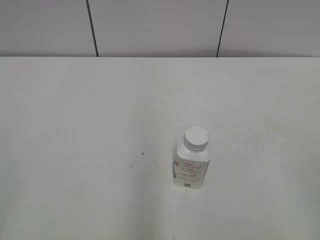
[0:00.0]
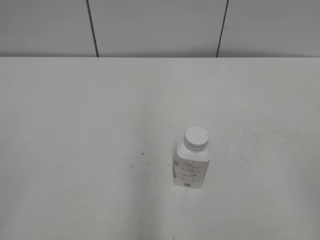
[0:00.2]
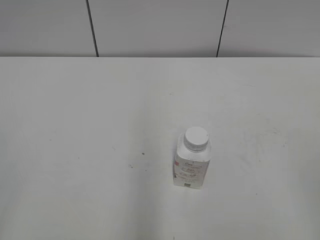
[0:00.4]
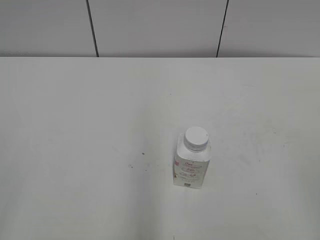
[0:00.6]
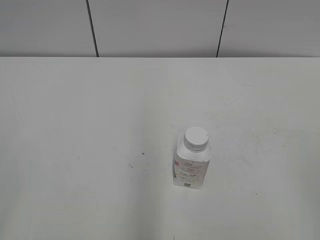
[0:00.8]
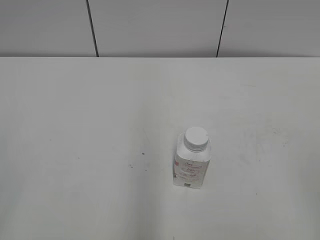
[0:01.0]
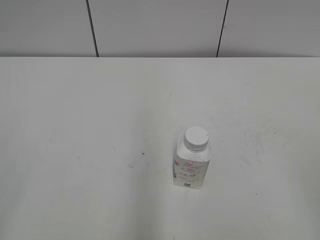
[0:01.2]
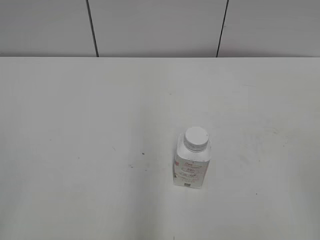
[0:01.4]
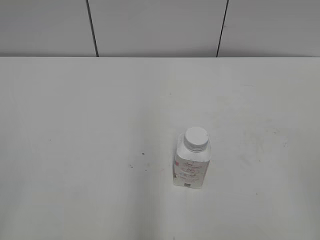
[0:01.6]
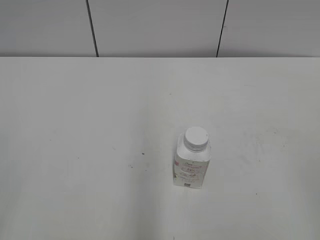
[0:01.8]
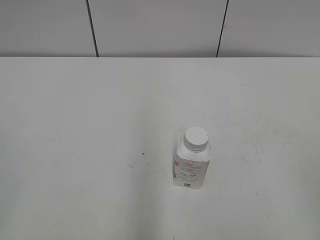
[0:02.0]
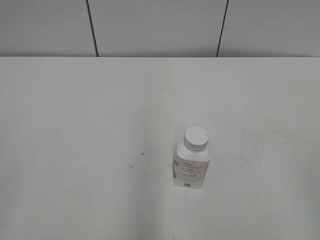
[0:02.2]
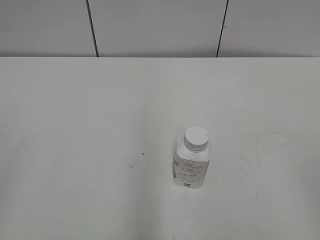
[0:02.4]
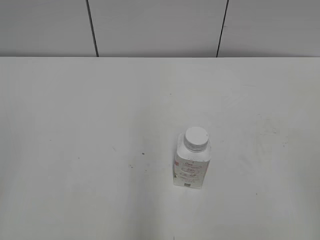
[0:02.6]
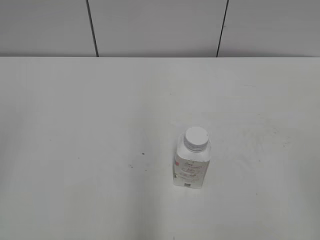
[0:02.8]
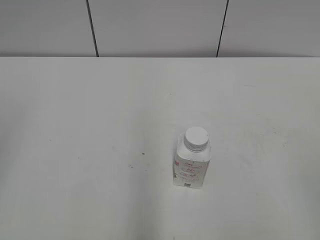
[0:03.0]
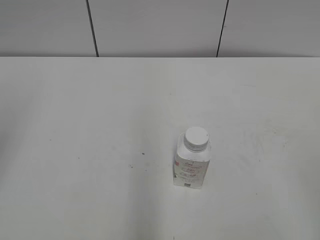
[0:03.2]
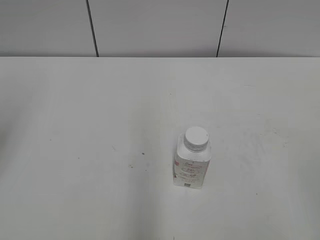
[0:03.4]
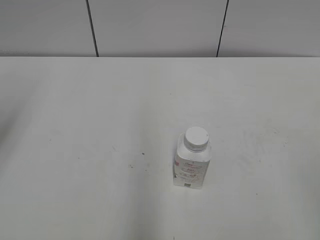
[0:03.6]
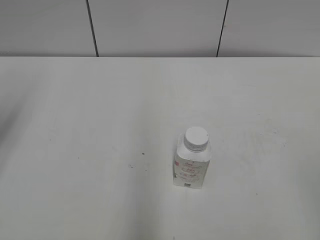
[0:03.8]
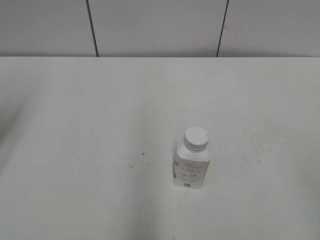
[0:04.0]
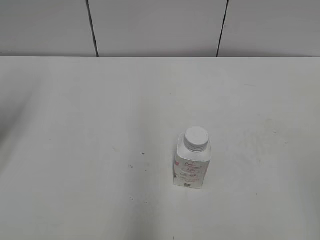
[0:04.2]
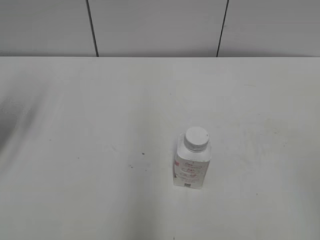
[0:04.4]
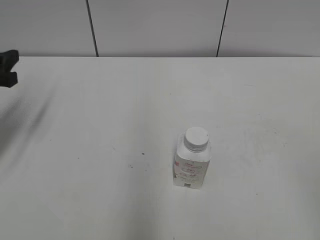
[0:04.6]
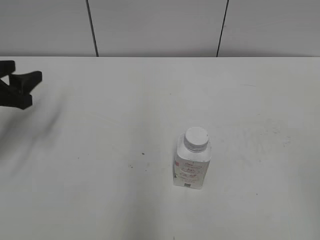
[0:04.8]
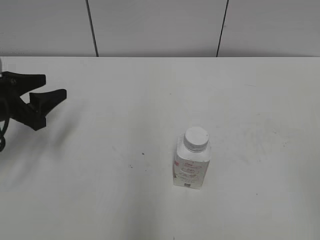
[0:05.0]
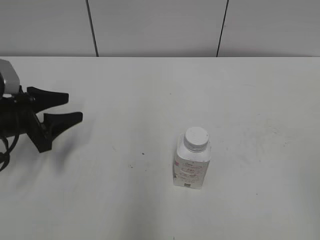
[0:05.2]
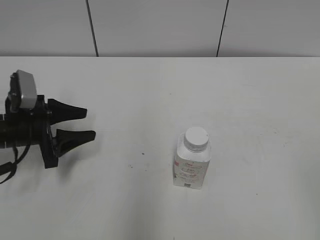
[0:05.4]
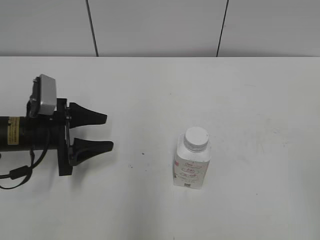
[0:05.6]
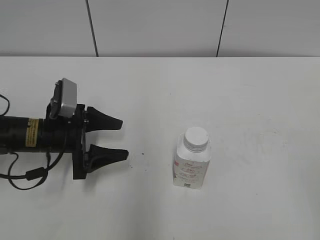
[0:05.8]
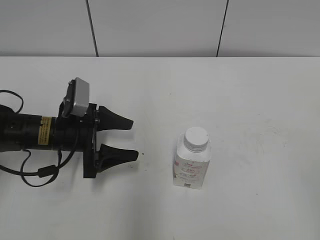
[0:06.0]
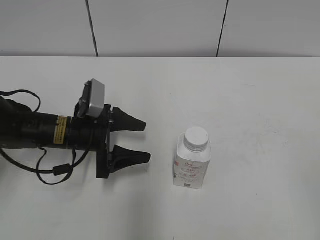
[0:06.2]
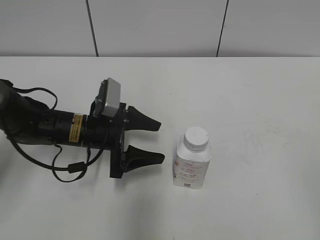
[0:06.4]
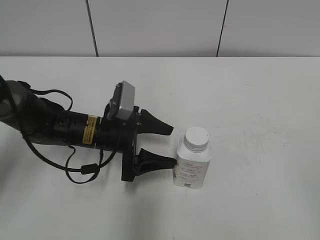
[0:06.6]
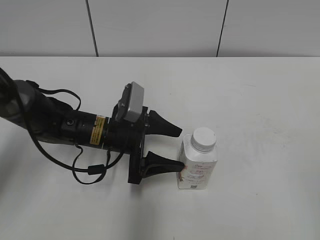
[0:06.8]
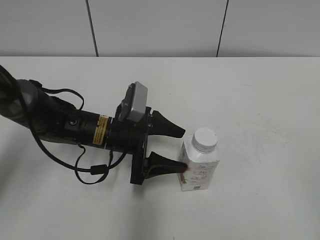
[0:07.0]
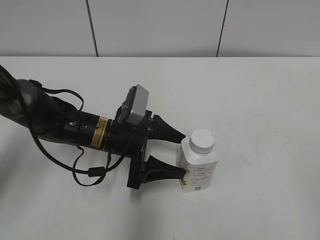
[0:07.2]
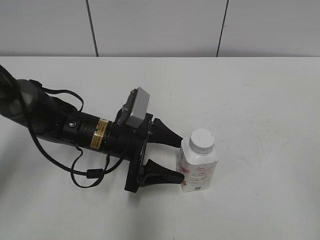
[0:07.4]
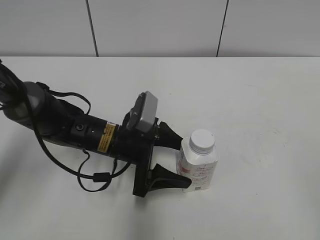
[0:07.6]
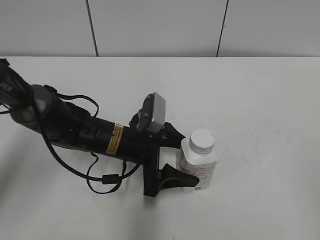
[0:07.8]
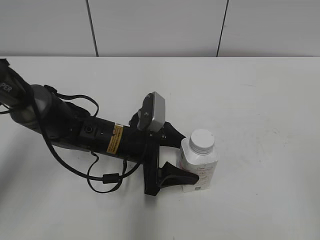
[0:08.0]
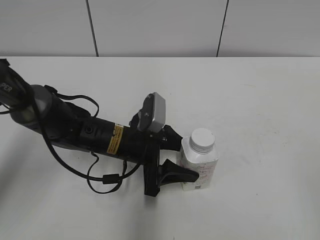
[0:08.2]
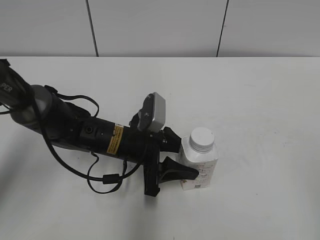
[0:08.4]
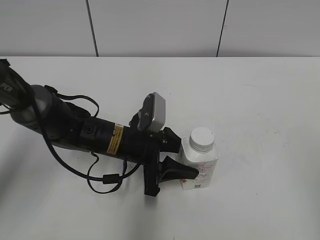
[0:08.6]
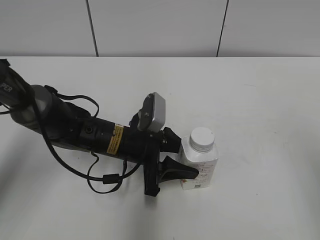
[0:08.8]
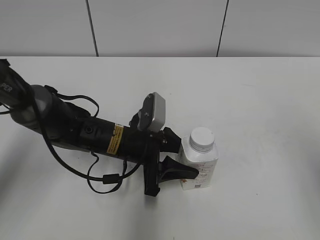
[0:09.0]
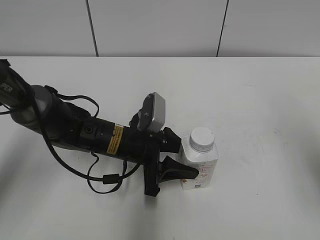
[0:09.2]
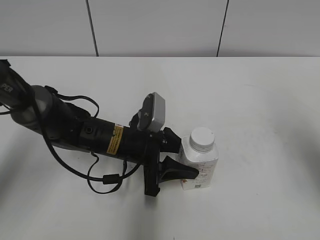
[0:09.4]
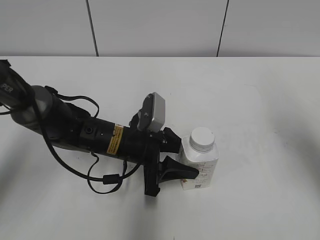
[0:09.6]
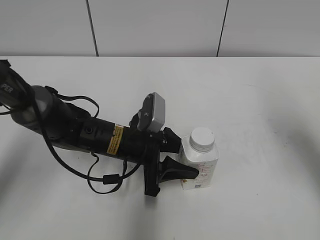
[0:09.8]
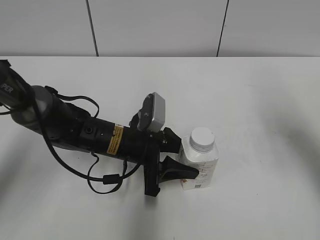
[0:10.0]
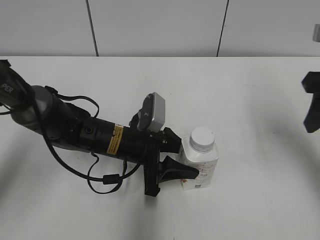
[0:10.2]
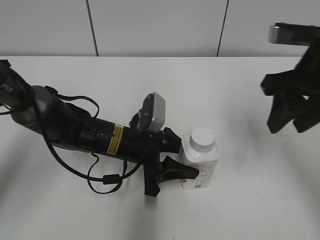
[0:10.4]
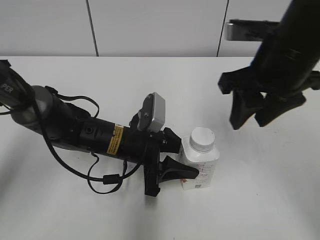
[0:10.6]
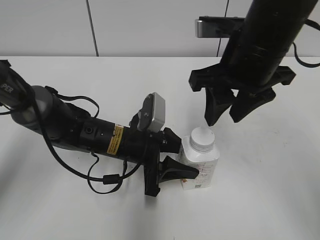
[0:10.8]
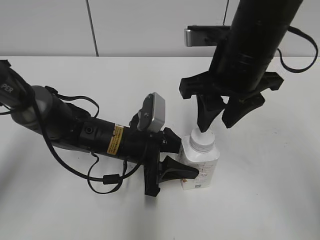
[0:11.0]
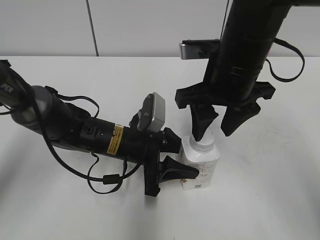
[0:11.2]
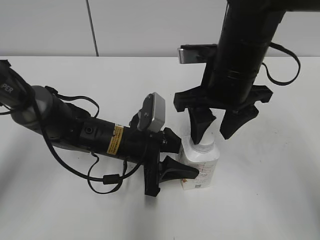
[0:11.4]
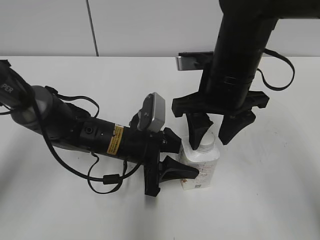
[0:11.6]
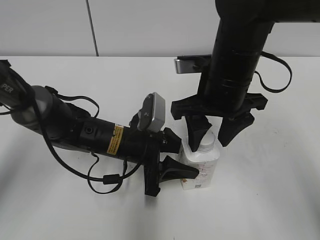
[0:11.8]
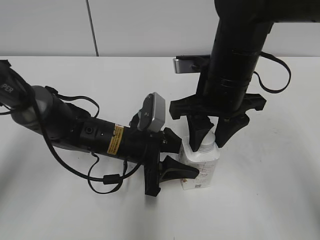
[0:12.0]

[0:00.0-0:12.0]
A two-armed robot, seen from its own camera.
Step, 0:00.0 to 0:08.4: Grab the Yili Changqing with the left hand.
0:03.0 to 0:04.4: The left gripper heads forward and downward, covering approximately 20 cm.
0:04.4 to 0:06.0: The left gripper travels downward and to the right by approximately 20 cm.
0:06.0 to 0:07.6: The left gripper moves to the right, about 10 cm.
0:07.6 to 0:09.0: The left gripper closes up, while the right gripper shifts about 15 cm forward.
0:09.0 to 0:10.4: The right gripper shifts approximately 20 cm forward and to the left, and closes.
0:10.4 to 0:12.0: The right gripper heads to the left and downward, covering about 15 cm, and opens, then closes once more.

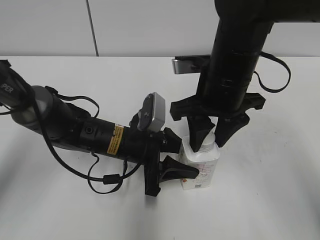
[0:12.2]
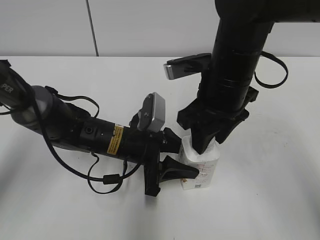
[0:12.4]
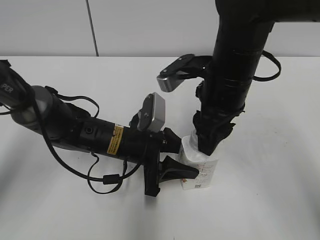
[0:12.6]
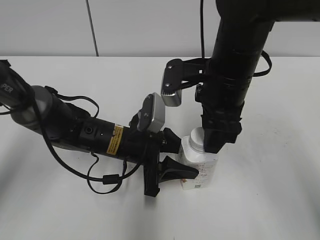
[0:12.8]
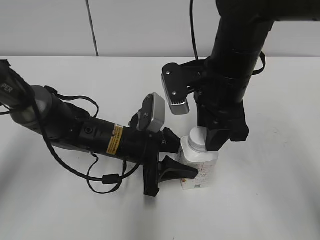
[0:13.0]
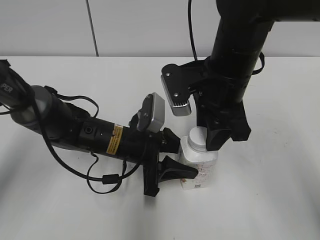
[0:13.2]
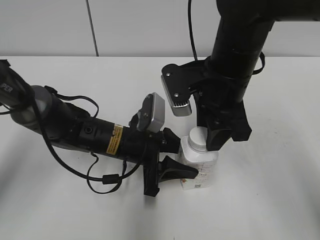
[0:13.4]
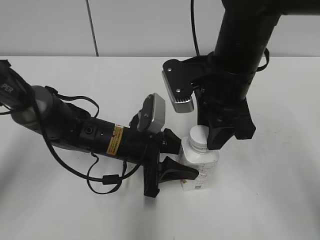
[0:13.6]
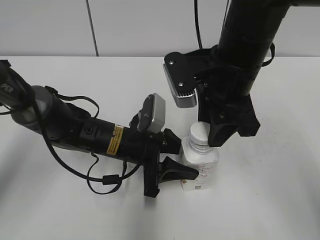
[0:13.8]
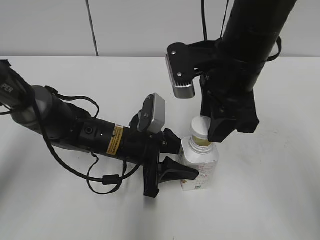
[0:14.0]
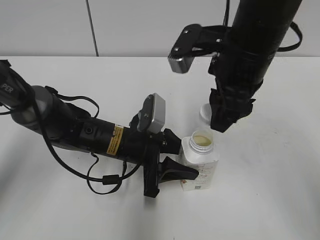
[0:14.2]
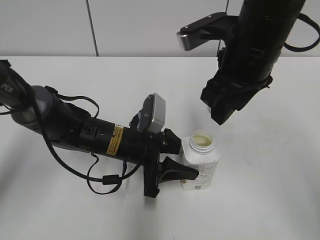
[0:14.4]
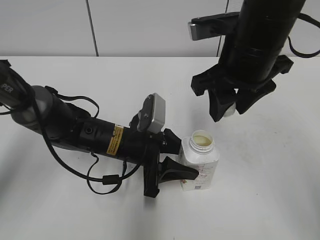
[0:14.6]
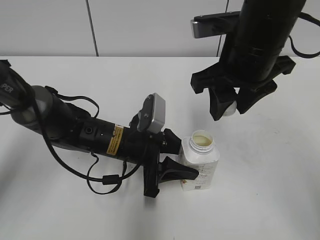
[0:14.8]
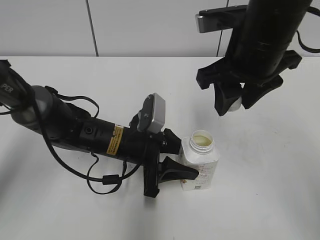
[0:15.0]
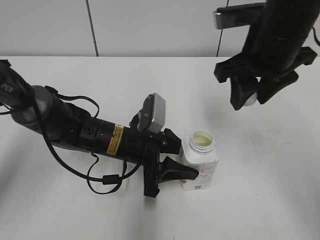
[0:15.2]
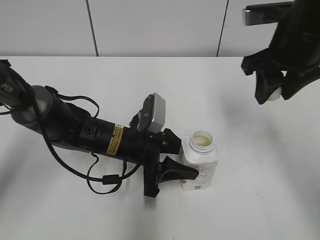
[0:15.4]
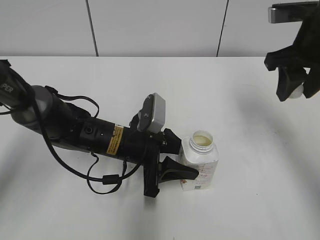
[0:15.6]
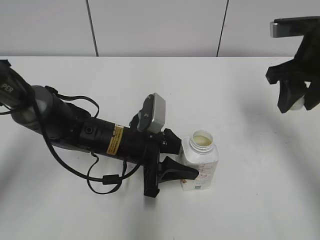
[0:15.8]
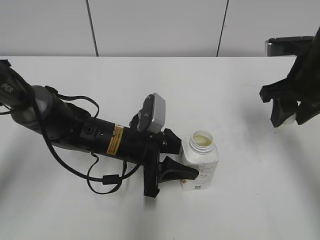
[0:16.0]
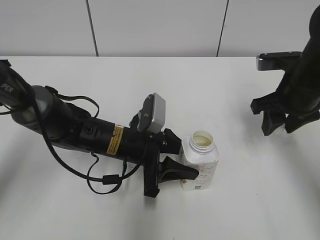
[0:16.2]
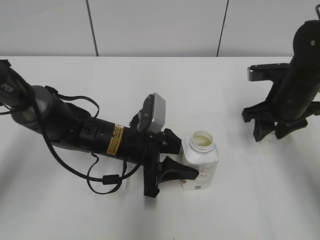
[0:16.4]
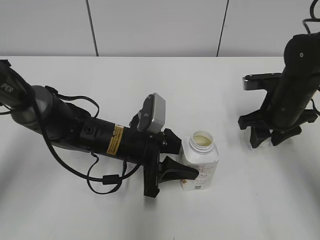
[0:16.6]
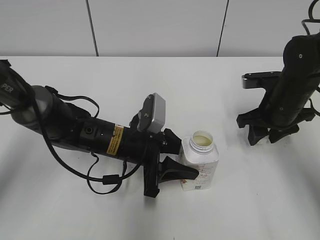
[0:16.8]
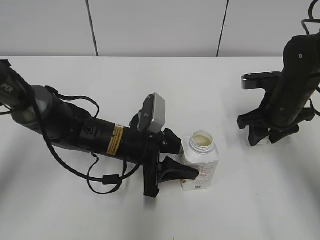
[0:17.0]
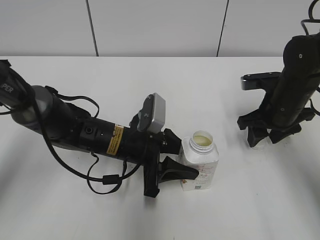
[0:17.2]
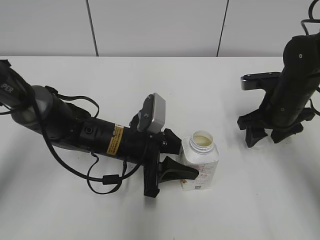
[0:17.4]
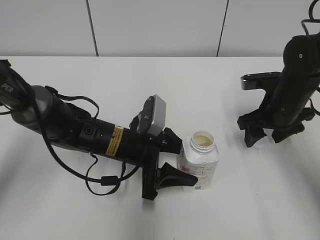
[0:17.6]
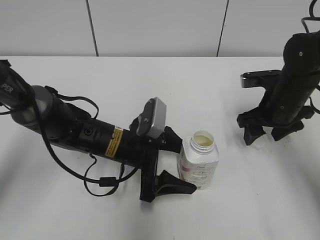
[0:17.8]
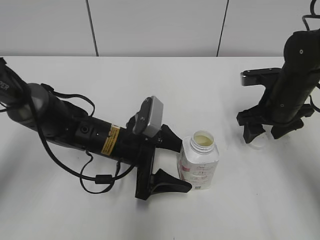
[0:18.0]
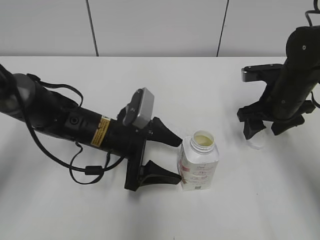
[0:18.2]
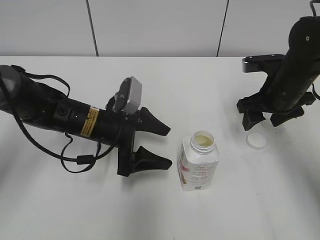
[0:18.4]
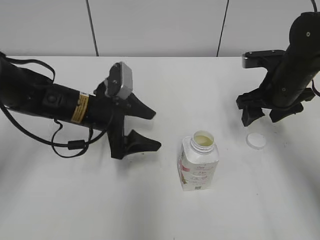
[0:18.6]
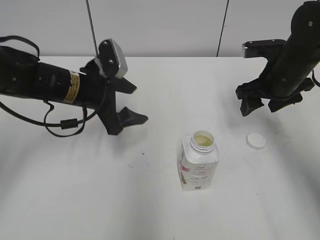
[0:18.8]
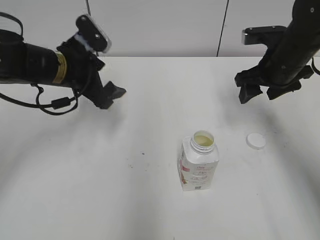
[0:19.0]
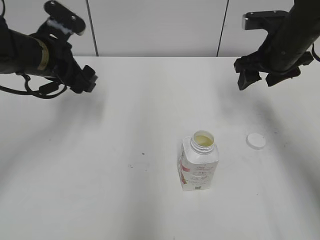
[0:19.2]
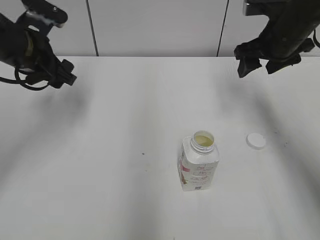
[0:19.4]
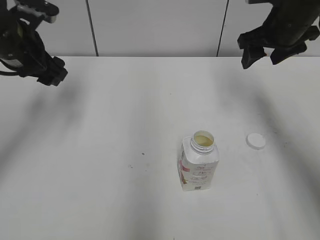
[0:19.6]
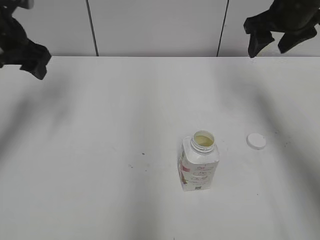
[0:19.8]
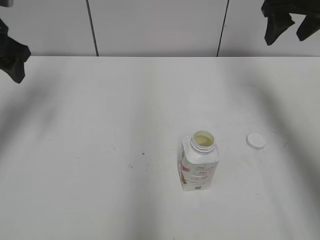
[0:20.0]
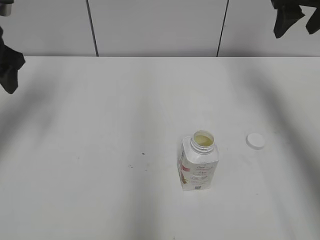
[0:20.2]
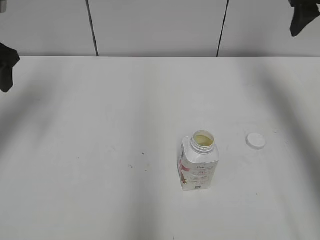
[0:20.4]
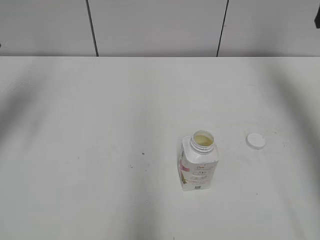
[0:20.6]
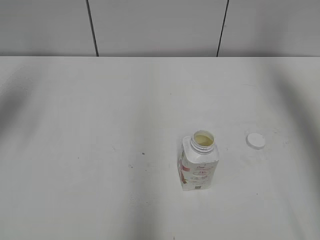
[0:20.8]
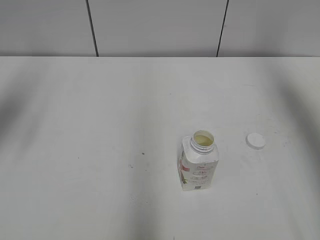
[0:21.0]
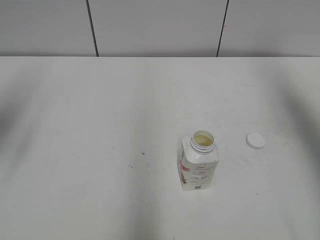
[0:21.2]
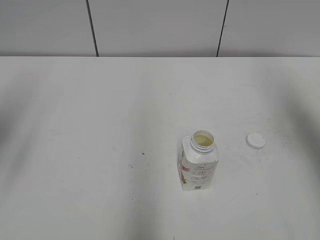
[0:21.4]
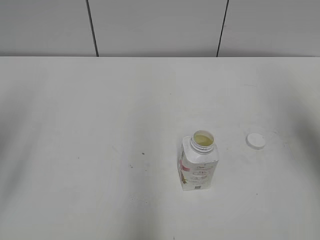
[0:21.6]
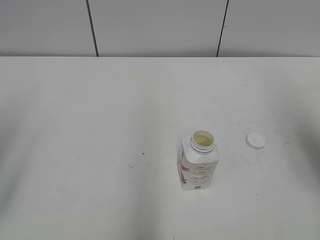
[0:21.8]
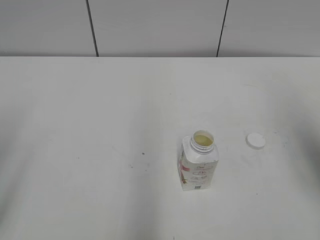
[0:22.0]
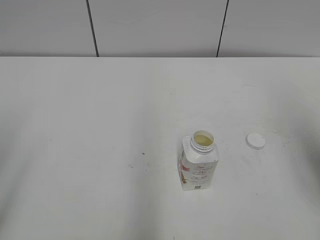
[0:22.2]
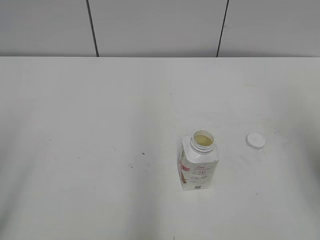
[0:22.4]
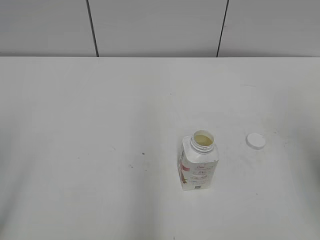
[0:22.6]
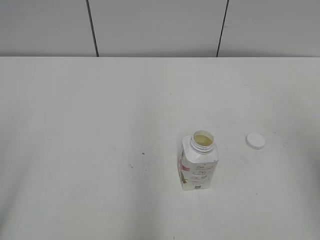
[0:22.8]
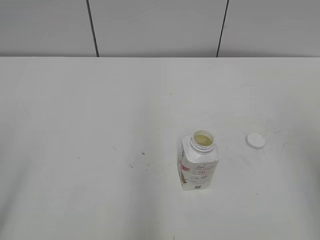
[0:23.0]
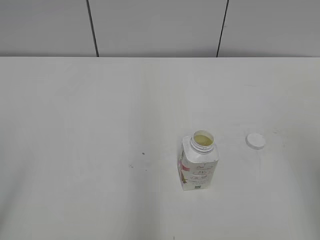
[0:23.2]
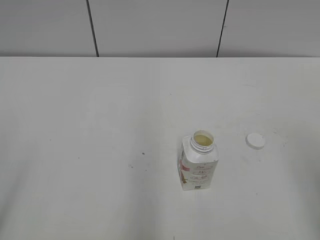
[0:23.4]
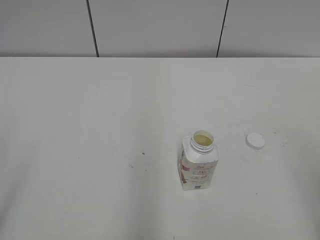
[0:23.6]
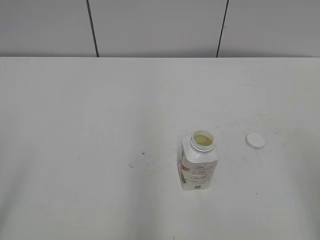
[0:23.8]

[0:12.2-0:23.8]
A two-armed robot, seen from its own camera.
Step, 0:13.8 to 0:17.2: Place the bottle cap on the right.
Step, 0:17.4 to 0:17.6: Place the Yili Changqing with the left hand.
0:13.6 to 0:15.0: The right gripper ends up approximately 5 cm from where it was.
0:15.0 to 0:16.6: The right gripper moves downward and to the right, approximately 20 cm.
0:16.6 to 0:18.0: The left gripper opens its fingers. Meanwhile the right gripper opens.
0:18.0 to 0:19.4: The left gripper moves upward, to the left and forward, some 20 cm. Meanwhile the right gripper moves upward and forward, approximately 10 cm.
0:19.4 to 0:21.0: The left gripper shifts some 15 cm upward, to the left and backward, while the right gripper shifts roughly 15 cm upward and to the right.
0:21.0 to 0:22.4: Both grippers travel together backward, approximately 20 cm.
